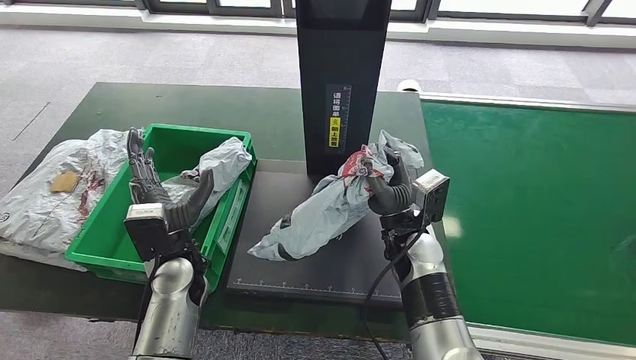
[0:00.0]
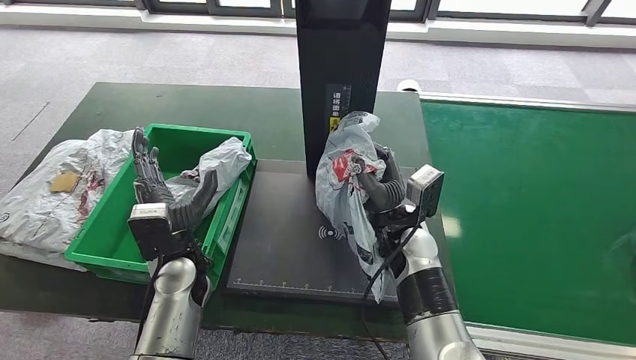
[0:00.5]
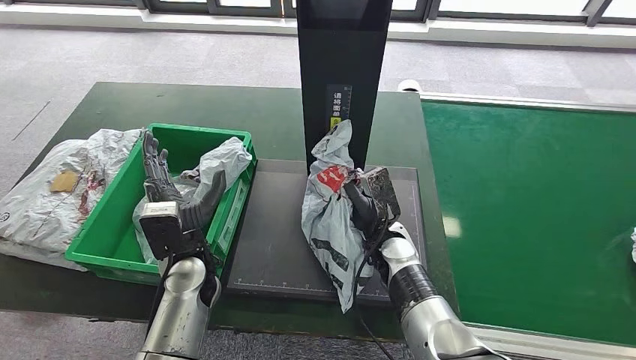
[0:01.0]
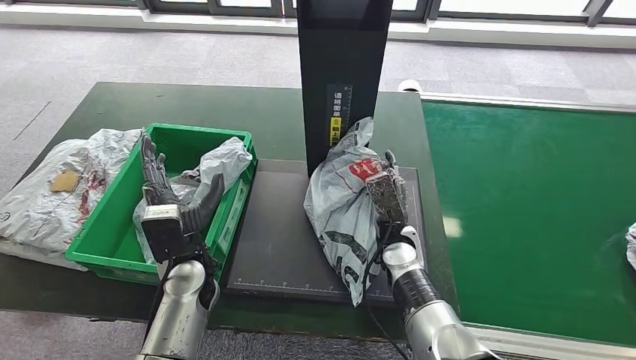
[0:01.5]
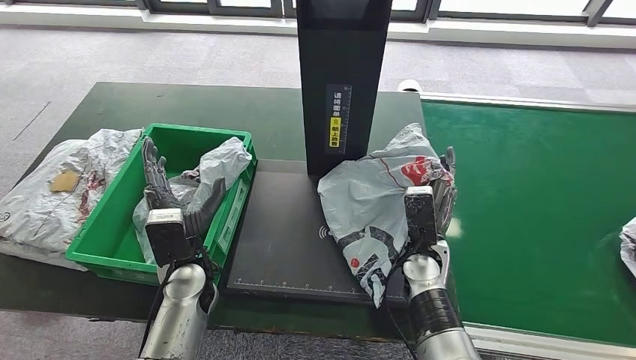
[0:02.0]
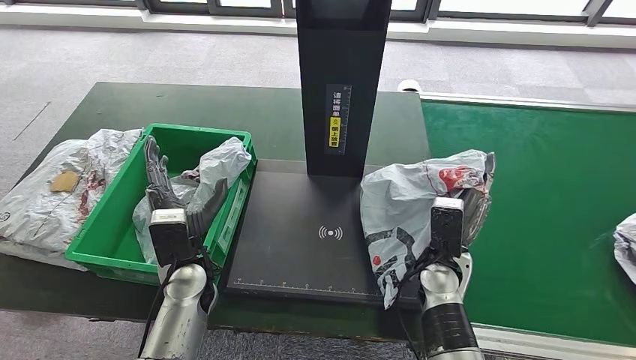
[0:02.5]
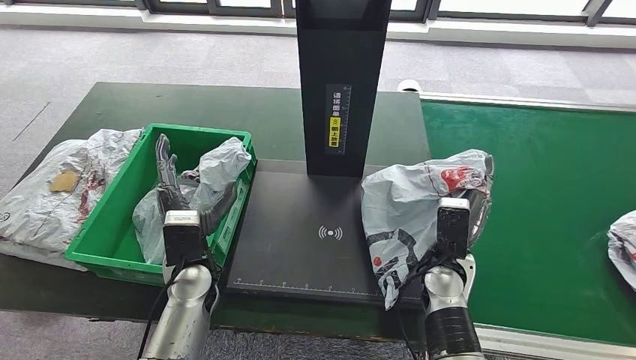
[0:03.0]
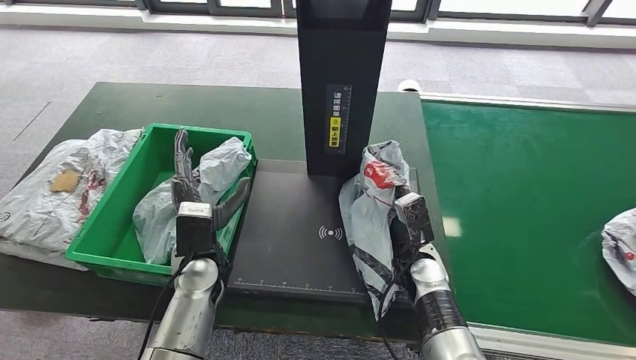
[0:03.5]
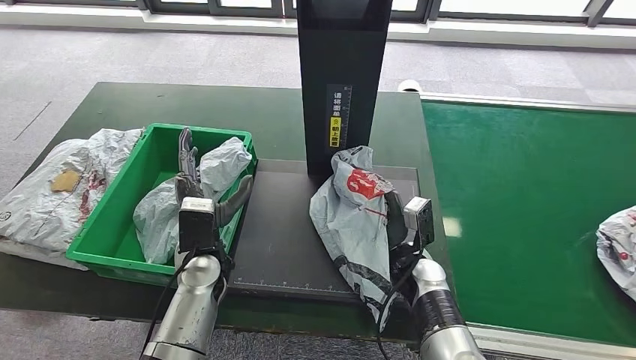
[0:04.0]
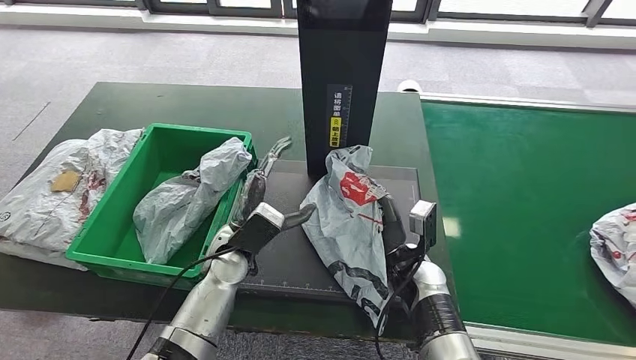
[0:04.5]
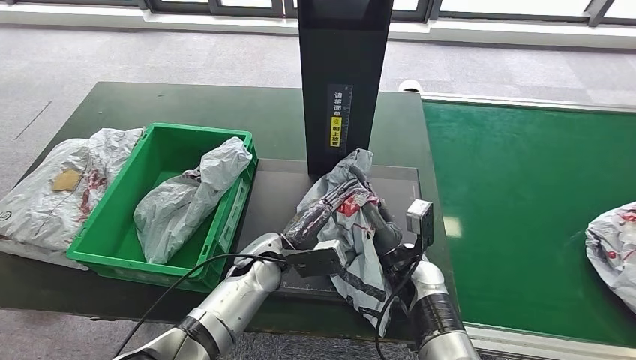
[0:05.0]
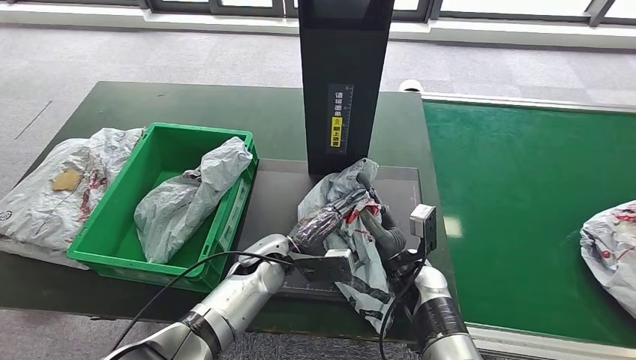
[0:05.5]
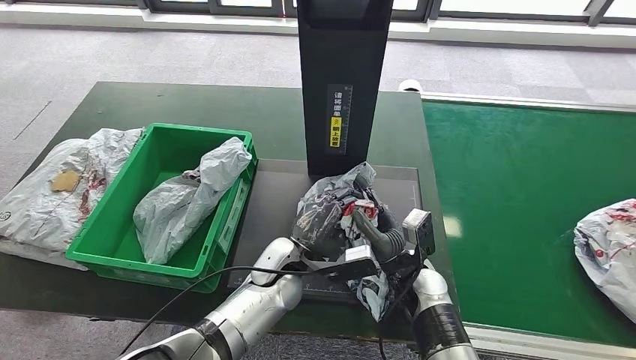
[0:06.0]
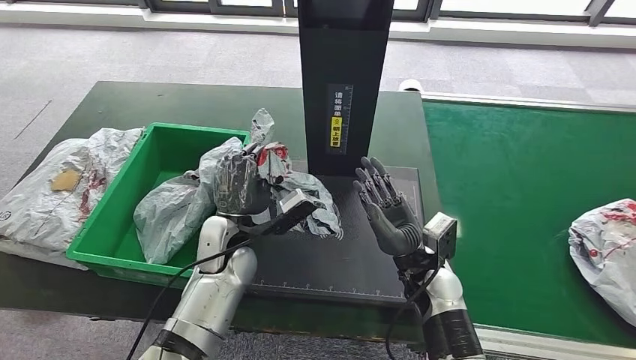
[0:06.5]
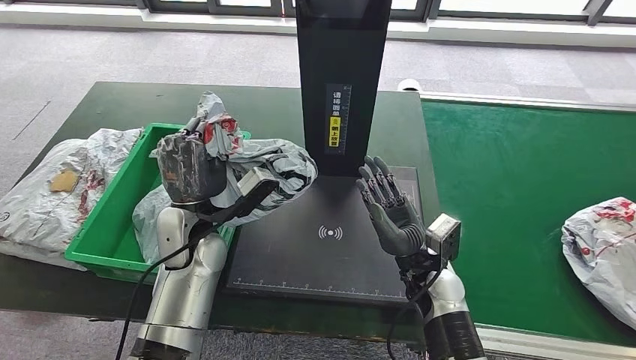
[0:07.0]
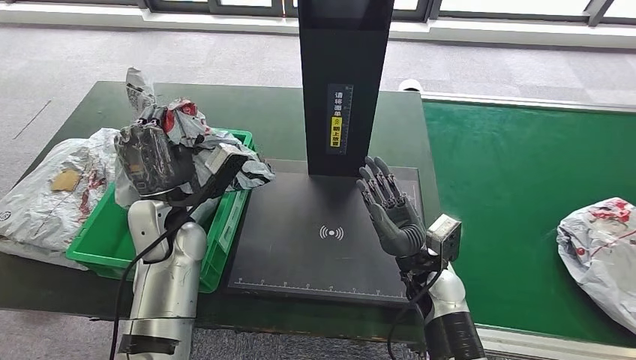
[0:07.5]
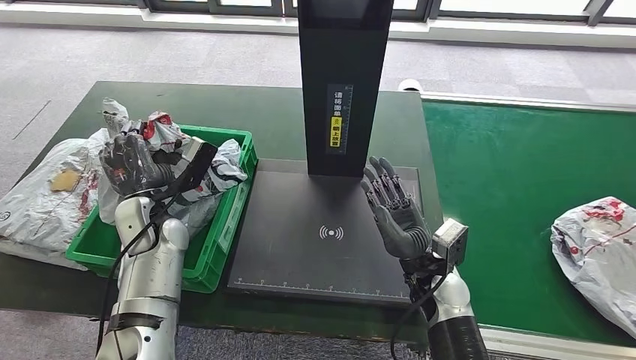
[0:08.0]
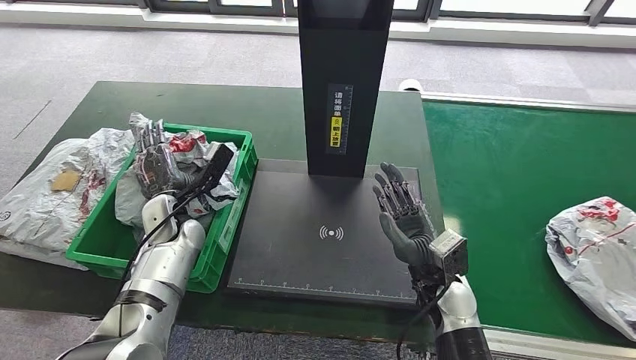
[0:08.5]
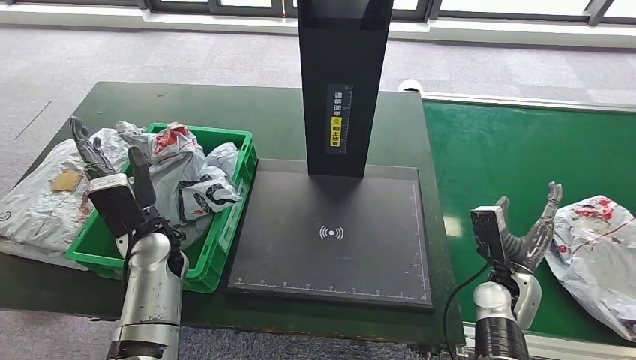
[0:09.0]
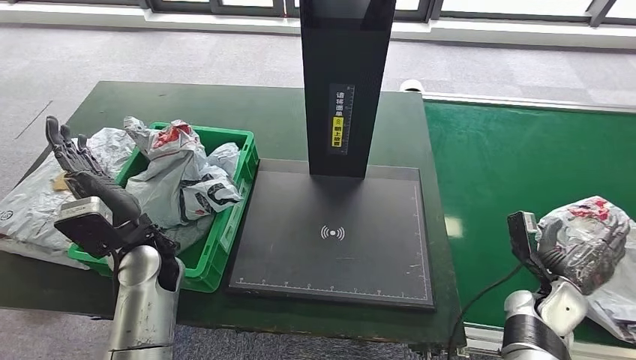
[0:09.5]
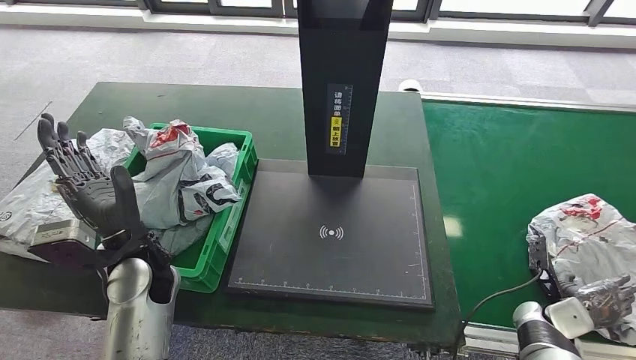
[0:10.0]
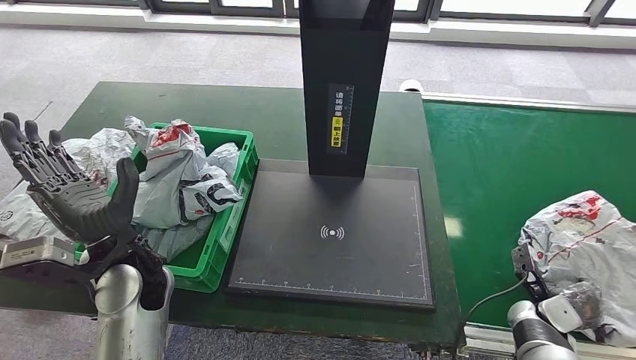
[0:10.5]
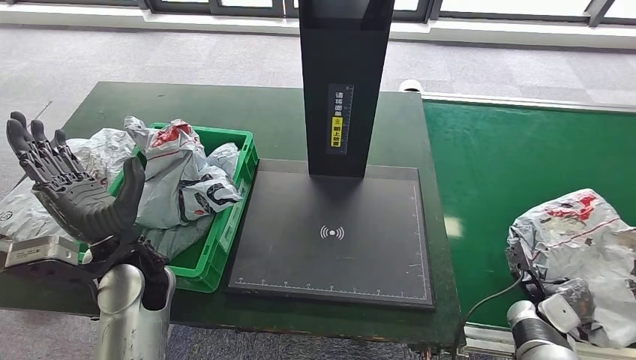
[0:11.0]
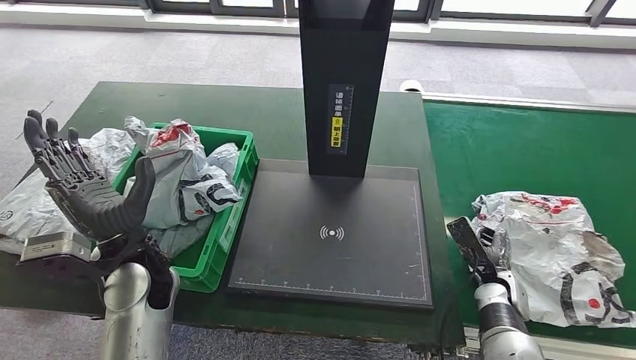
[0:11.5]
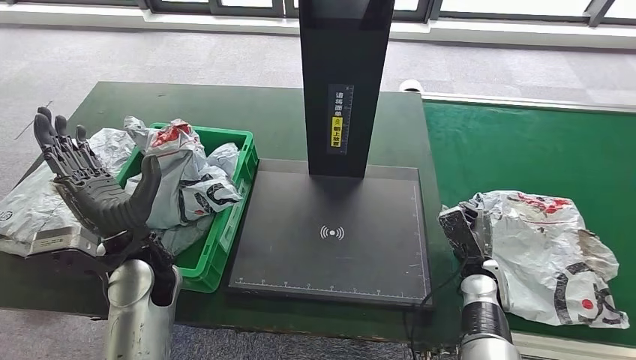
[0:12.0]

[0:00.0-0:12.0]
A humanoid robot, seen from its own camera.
Step, 0.5 to 5.0 s: Place the parcel onto the inbound machine.
Step, 6.0 to 7.5 s: Pick up the parcel from the inbound machine.
Step, 8.0 to 9.5 s: Place the parcel into the delivery box.
0.0 to 2.0 s: The right hand moves downward, roughly 5 cm.
4.0 to 6.0 s: The left hand heads to the right, covering about 10 cm.
10.0 to 12.0 s: The right hand moves to the left, some 15 cm.

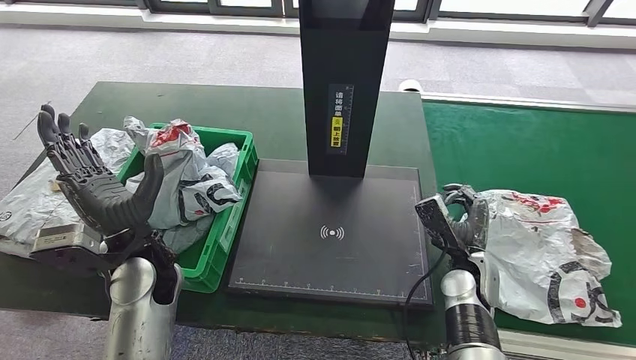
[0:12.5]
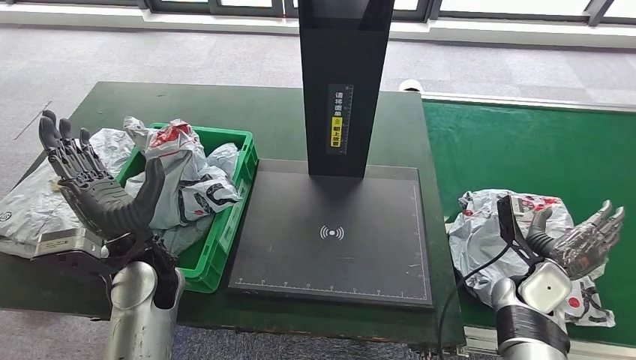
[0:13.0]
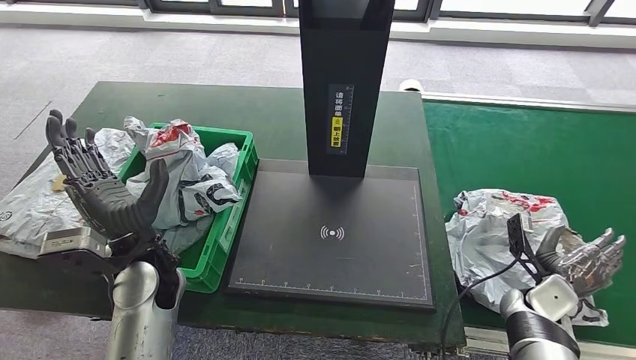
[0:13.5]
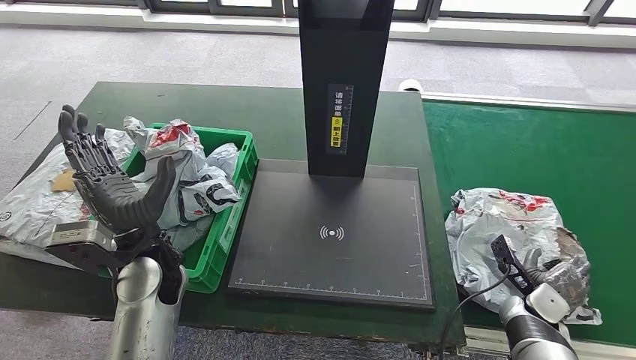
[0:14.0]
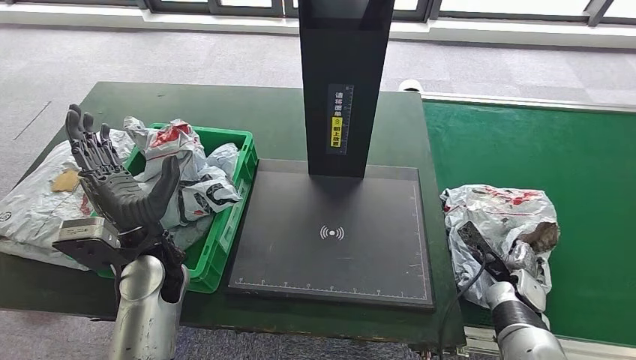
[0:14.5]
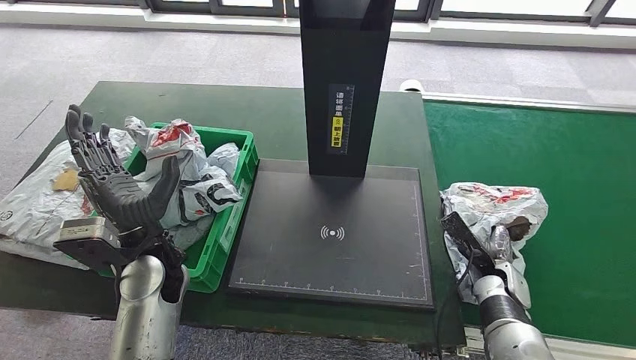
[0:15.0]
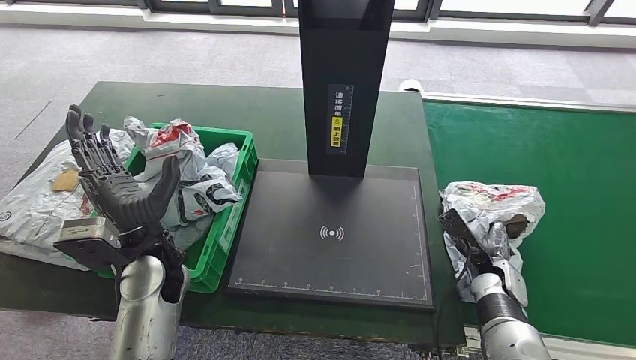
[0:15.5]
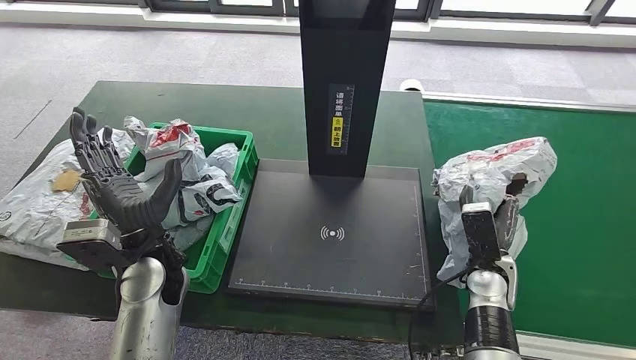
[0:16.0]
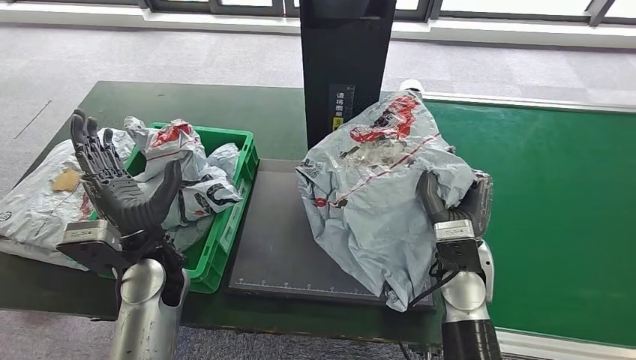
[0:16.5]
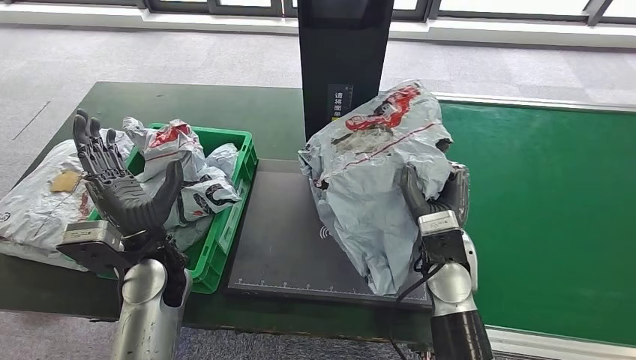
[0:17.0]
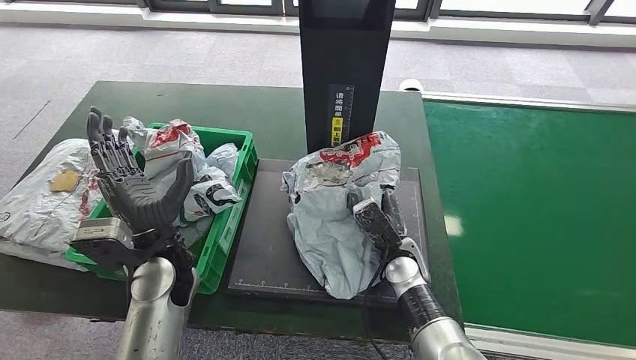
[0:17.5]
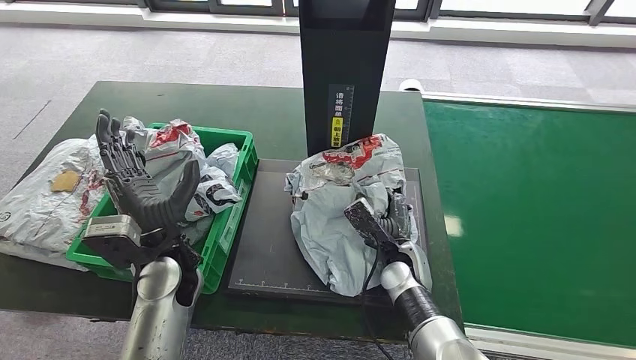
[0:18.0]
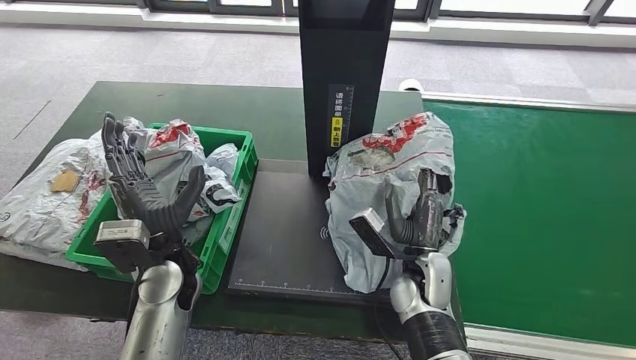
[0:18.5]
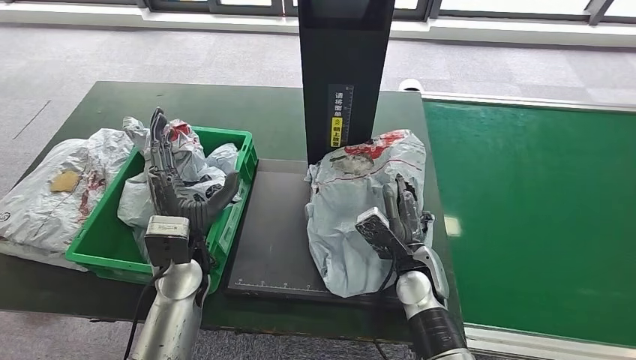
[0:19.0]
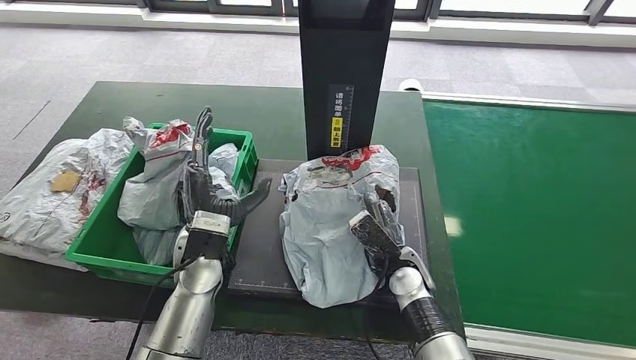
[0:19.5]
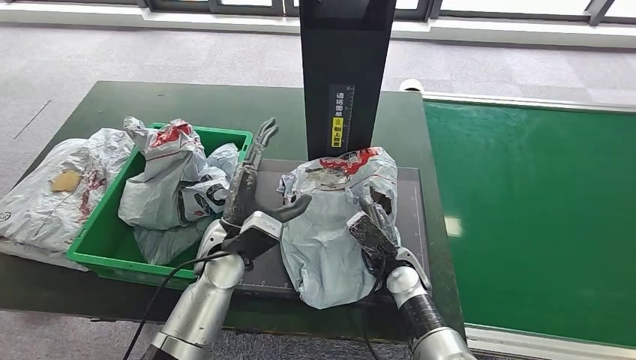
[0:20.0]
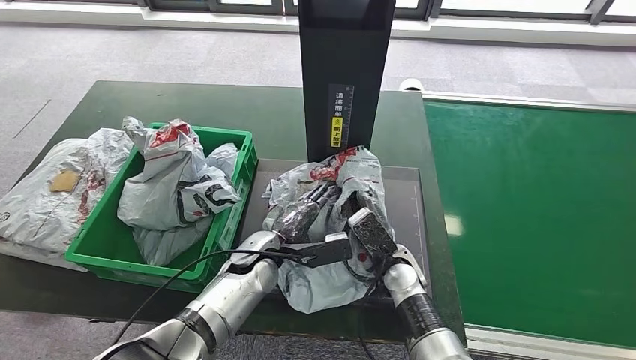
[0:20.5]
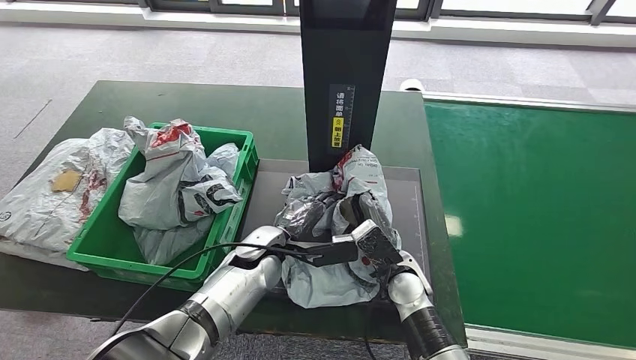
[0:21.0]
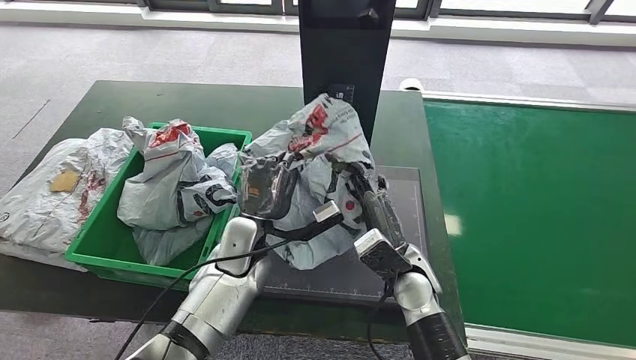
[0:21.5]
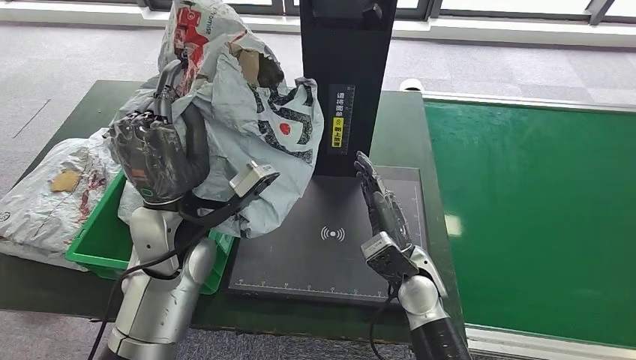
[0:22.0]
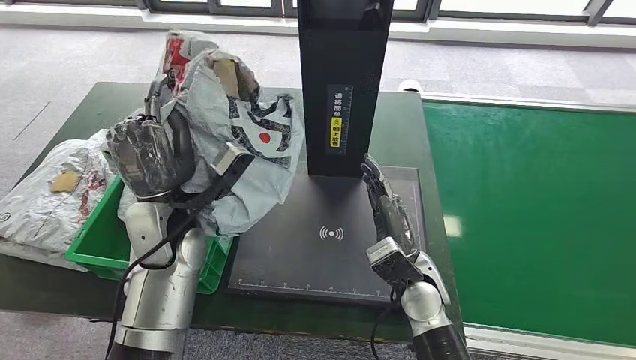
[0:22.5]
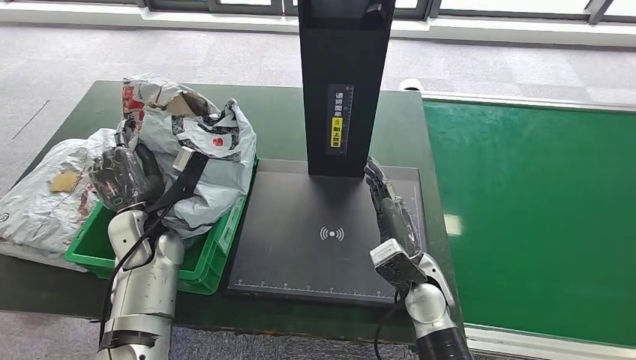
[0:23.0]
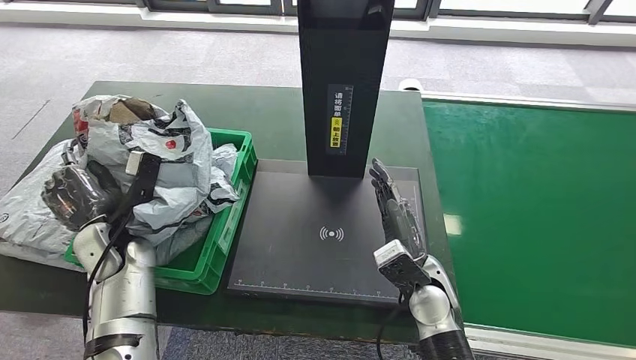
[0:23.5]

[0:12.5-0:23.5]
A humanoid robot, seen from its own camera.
Step, 12.5 to 16.5 s: Pick up the parcel from the conveyor belt.
Step, 17.0 to 21.0 s: Place the parcel onto the inbound machine.
Step, 21.5 to 22.5 s: Pick up the parcel from the inbound machine.
12.5 to 14.5 s: The right hand goes about 15 cm to the right and downward.
14.5 to 16.0 s: The right hand is displaced to the left and upward by about 10 cm.
18.0 to 20.0 s: The left hand travels to the right by approximately 5 cm.
20.0 to 21.5 s: The right hand travels upward by some 5 cm.
